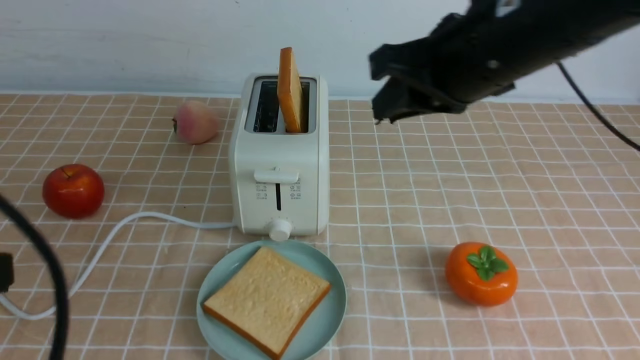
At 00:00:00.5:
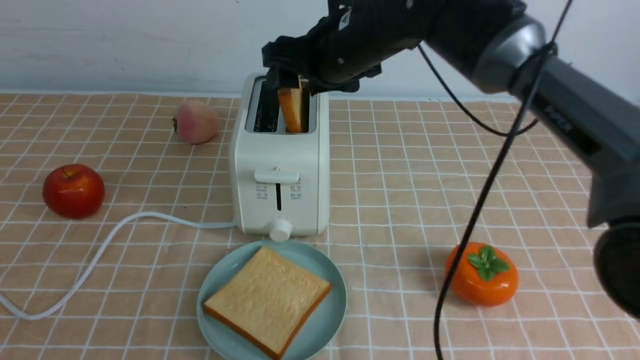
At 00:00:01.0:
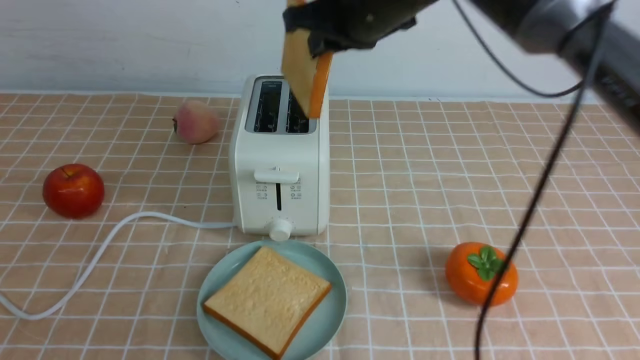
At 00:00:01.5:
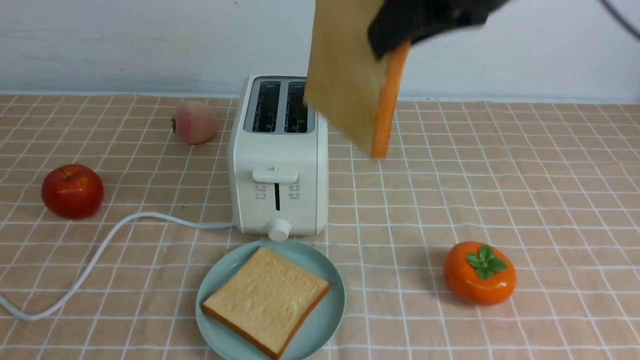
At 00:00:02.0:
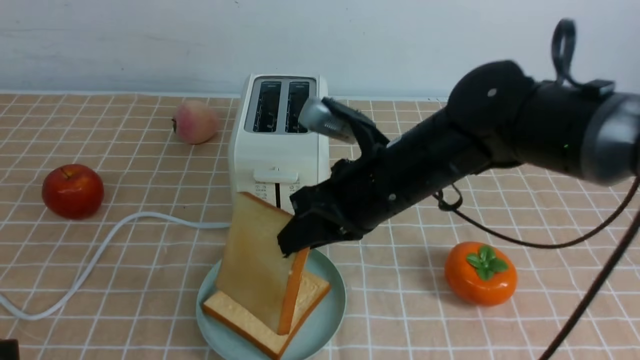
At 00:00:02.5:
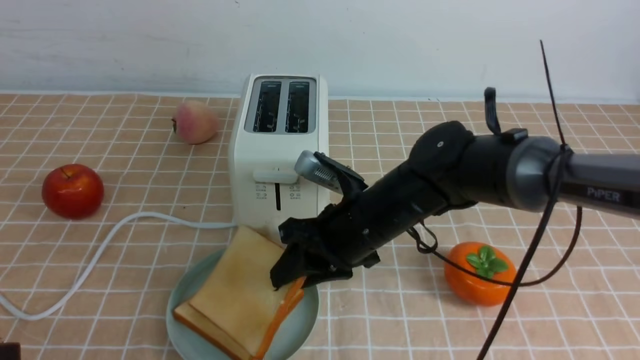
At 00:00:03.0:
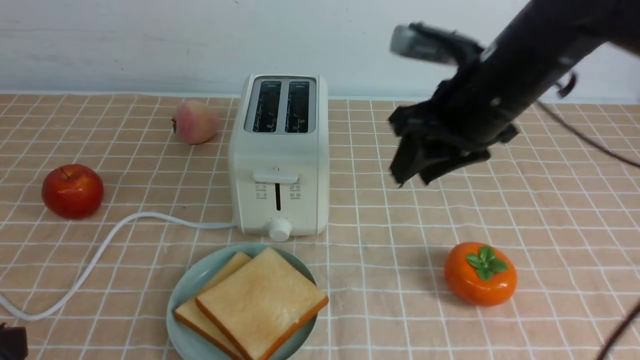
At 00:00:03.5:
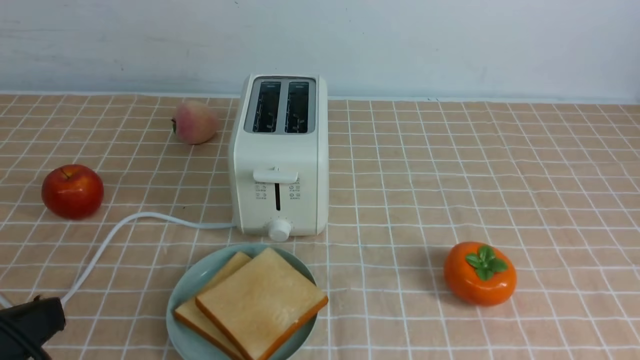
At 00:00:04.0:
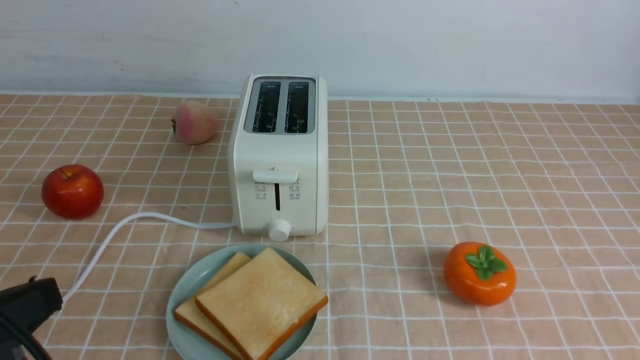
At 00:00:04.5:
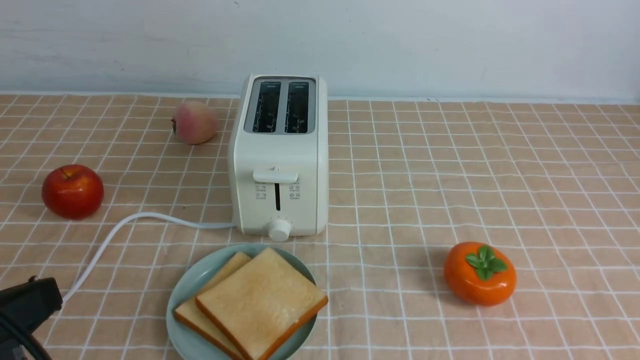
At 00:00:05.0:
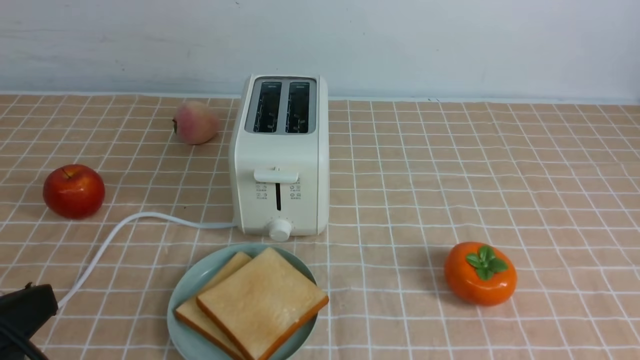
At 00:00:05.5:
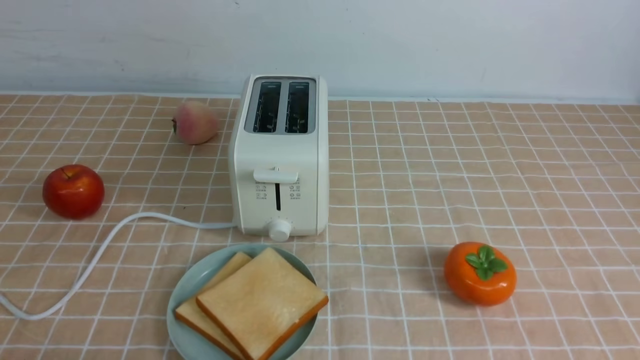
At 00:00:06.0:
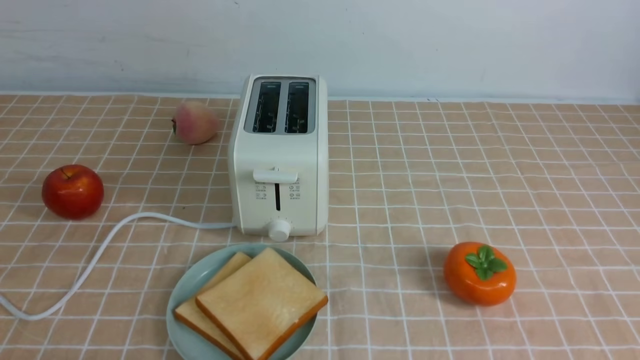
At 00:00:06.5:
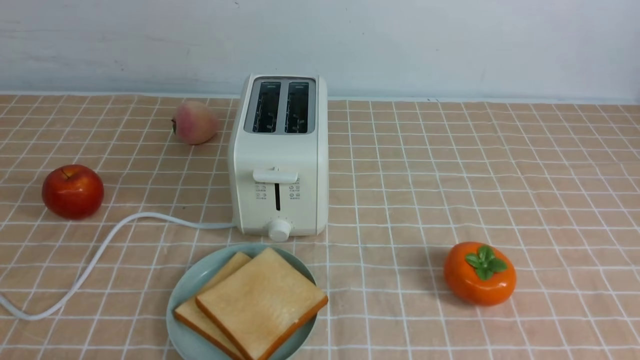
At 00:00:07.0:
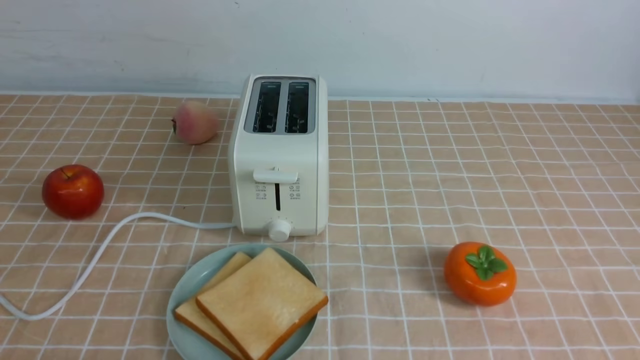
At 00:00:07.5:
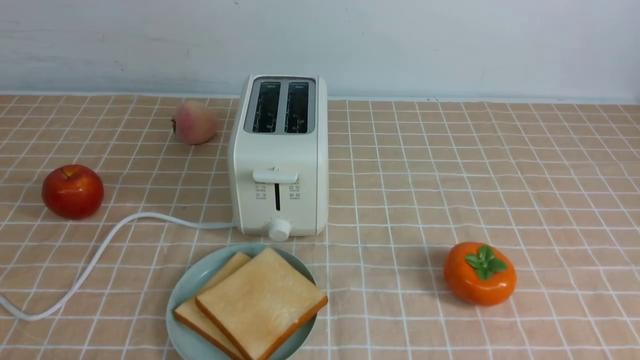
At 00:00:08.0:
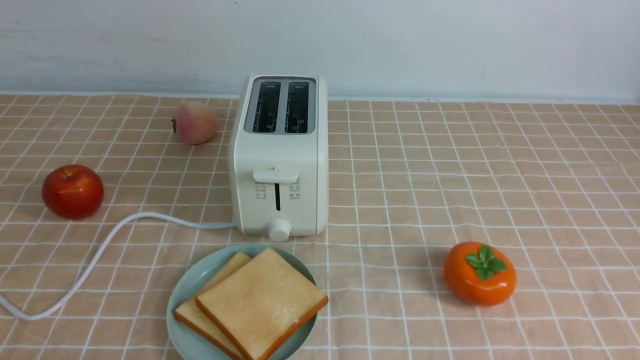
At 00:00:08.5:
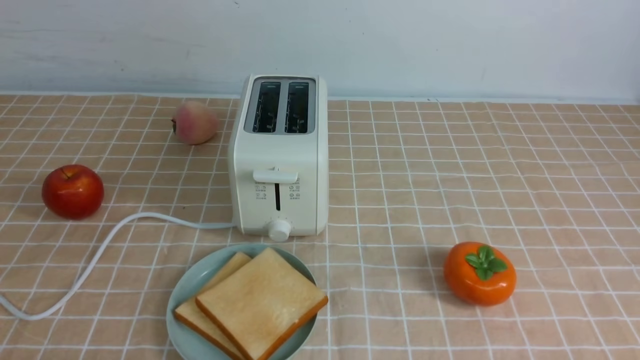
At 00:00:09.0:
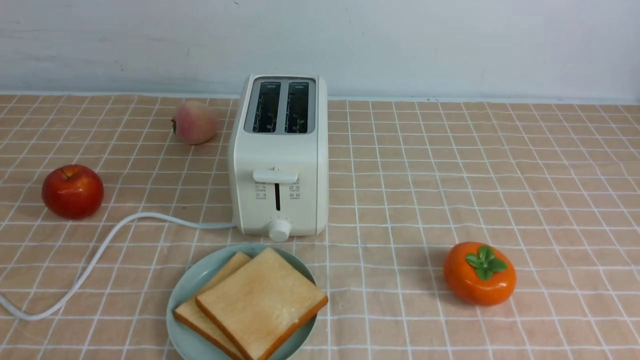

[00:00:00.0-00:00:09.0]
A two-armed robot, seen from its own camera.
Task of the whole recording: take toasted bread from bread machine on light coffee tablecloth place on plate.
Step, 00:00:01.0 to 00:00:02.5: use the right arm to put a slice of bread into the plate.
00:00:00.0 to 00:00:02.0: The right gripper swings up and down, roughly 15 cm each way, with 2 reversals, and opens and closes again, while the left gripper shifts by roughly 5 cm.
00:00:02.0 to 00:00:04.5: The right gripper moves backward and to the right, some 35 cm, and opens and closes again.
00:00:04.5 to 00:00:07.0: The left gripper is displaced downward by some 15 cm.
